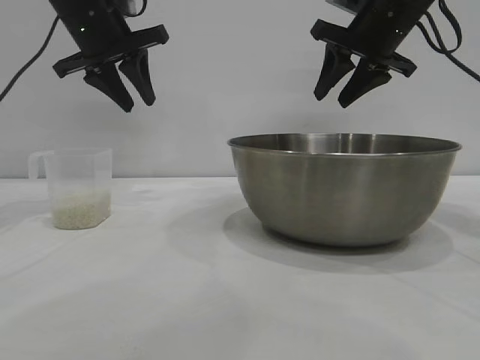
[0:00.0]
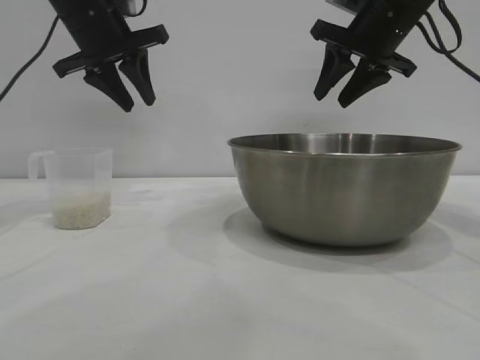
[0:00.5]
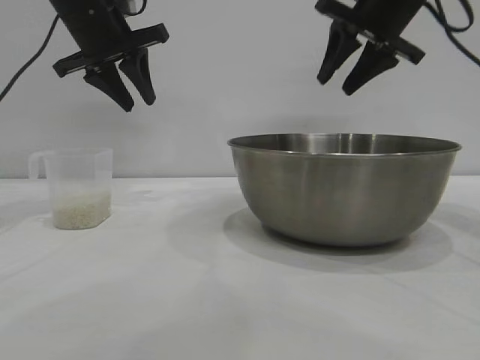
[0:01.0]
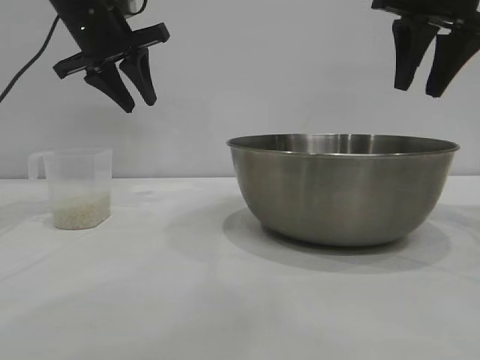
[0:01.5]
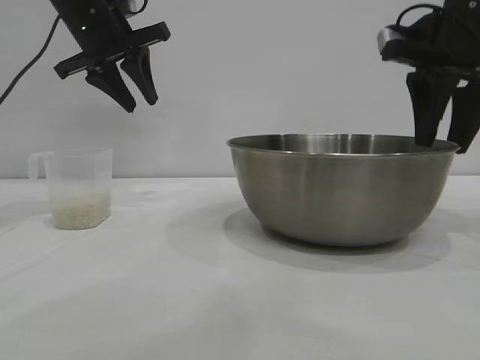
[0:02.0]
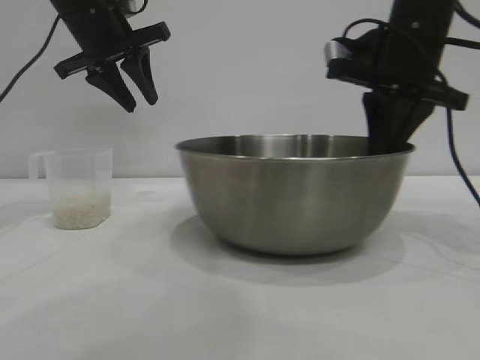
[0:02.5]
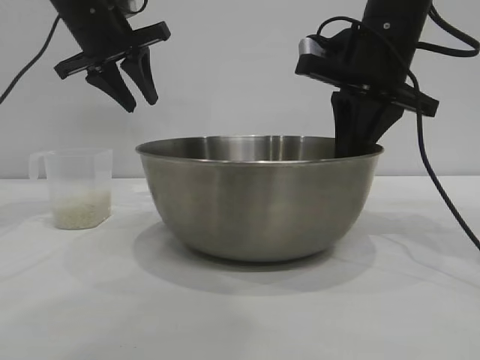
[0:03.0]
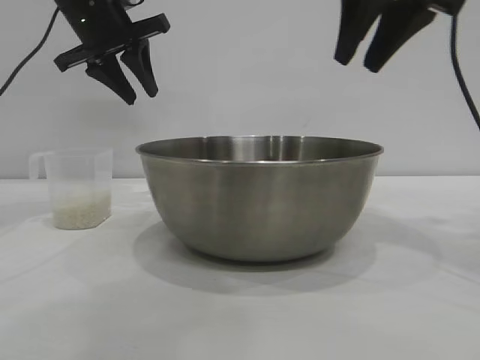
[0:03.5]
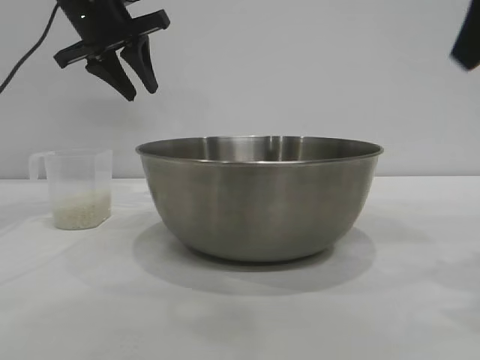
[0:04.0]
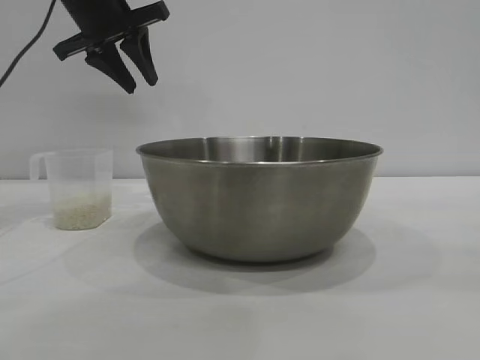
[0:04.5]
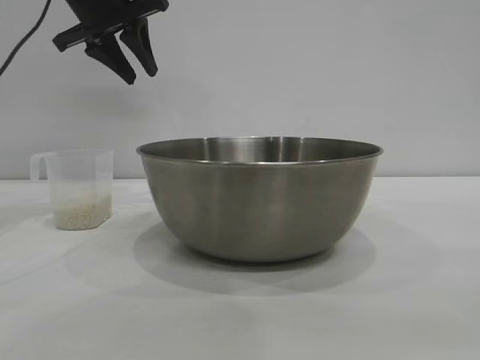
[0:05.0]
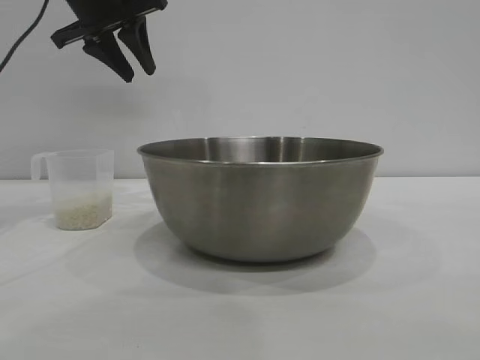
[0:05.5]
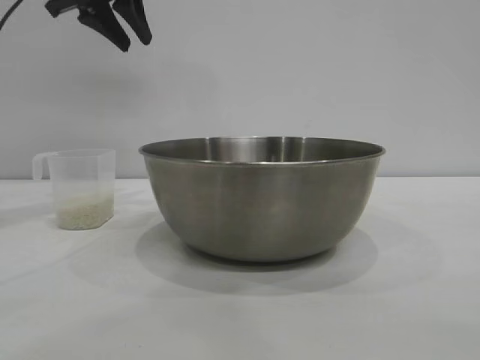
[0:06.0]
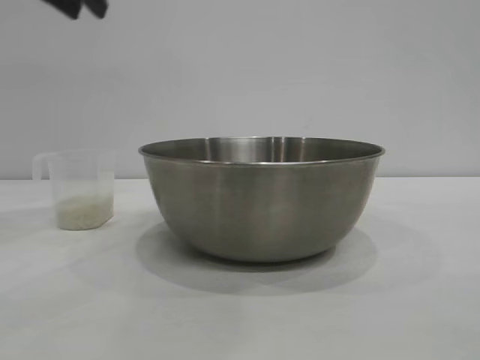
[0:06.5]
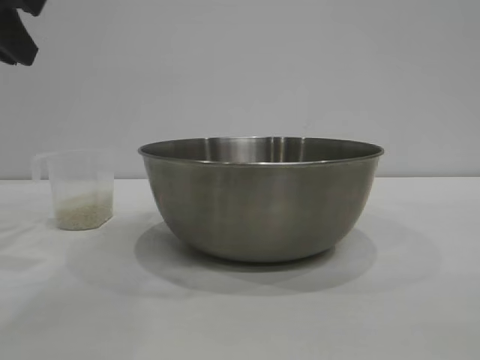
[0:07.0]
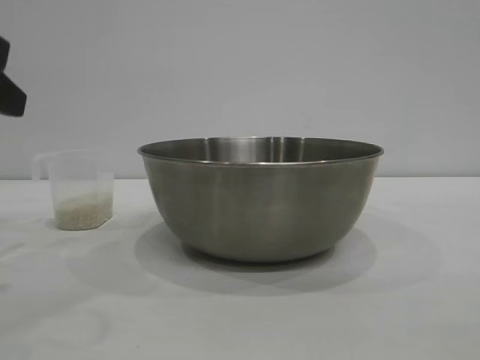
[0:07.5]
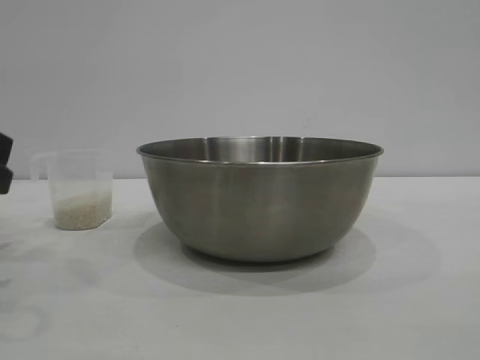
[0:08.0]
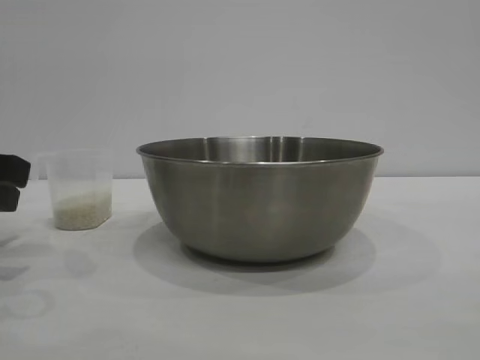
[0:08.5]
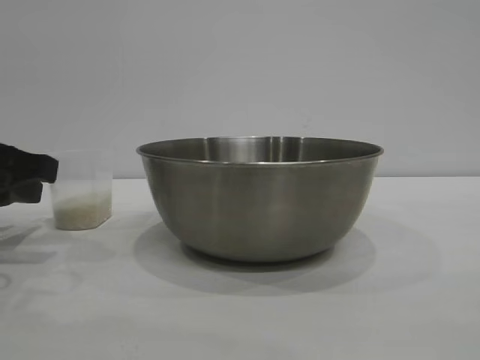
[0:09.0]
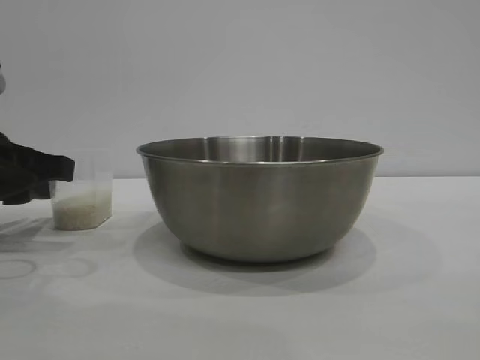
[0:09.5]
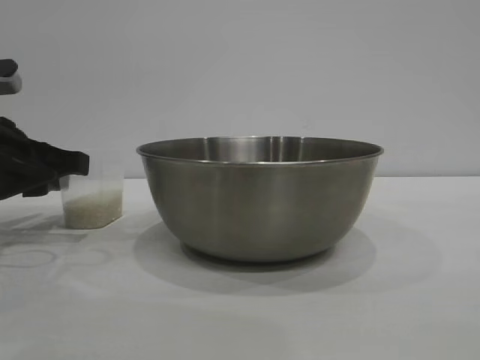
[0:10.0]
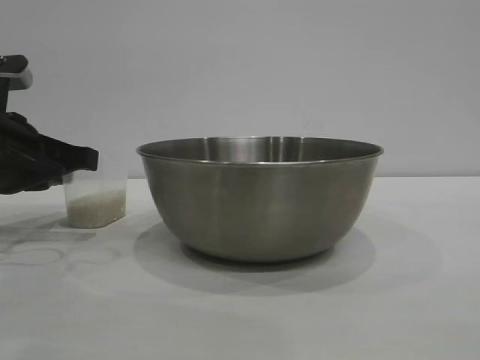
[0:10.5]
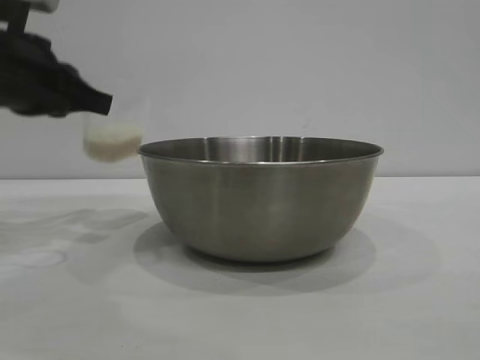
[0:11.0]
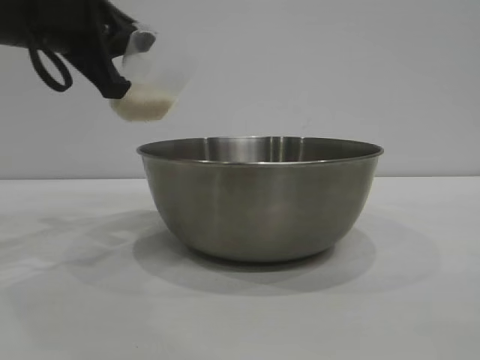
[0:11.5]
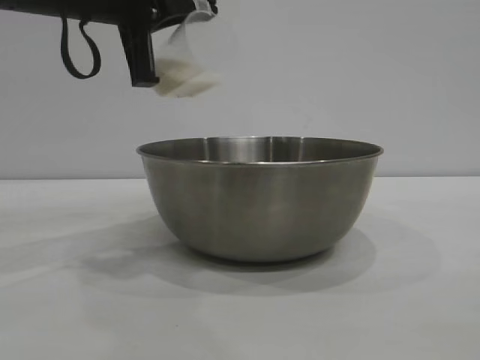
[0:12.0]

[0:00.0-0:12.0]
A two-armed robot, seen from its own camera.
Task of the whole recording: the right gripper grasp the rice container and place it in the center of the table, the left gripper grasp the rice scoop and pour the rice into the rice container.
Step, 0:00.0 to 0:03.0: Move the bowl to the center of view with the right gripper.
Step, 0:03.5 to 0:11.0: Pick up the cup with rice in it with the left gripper.

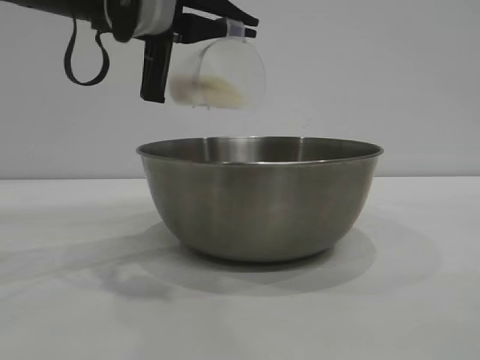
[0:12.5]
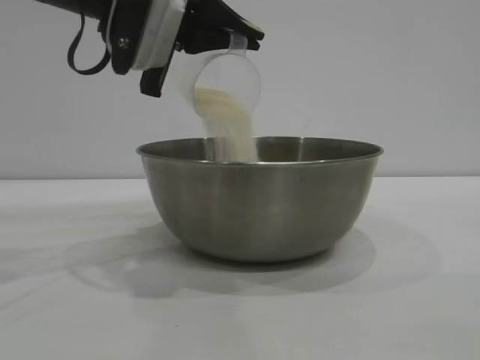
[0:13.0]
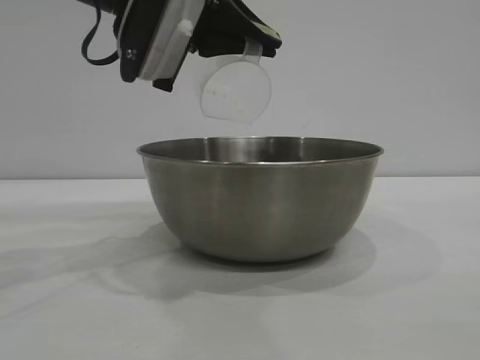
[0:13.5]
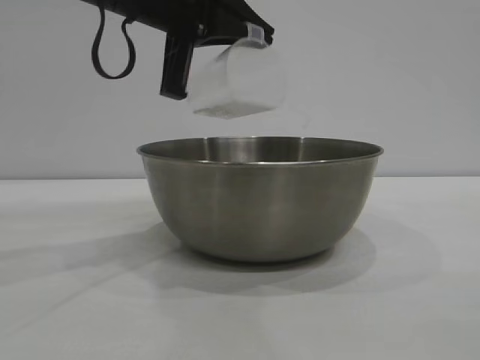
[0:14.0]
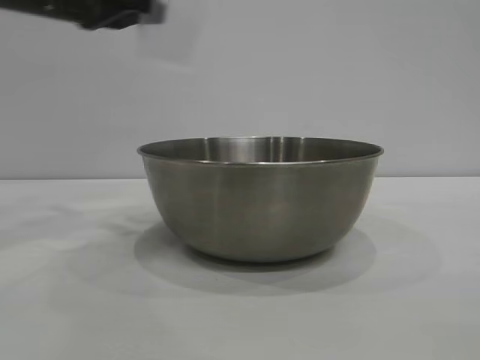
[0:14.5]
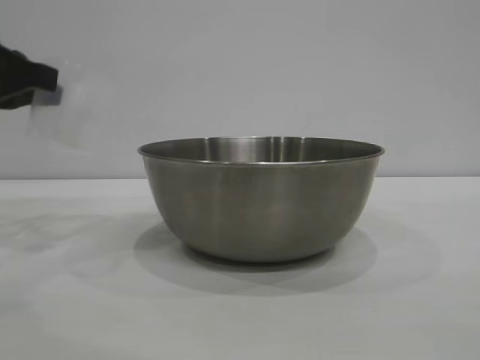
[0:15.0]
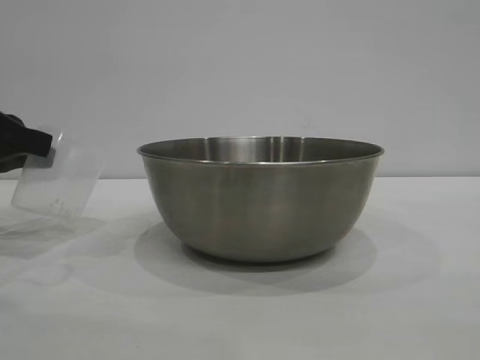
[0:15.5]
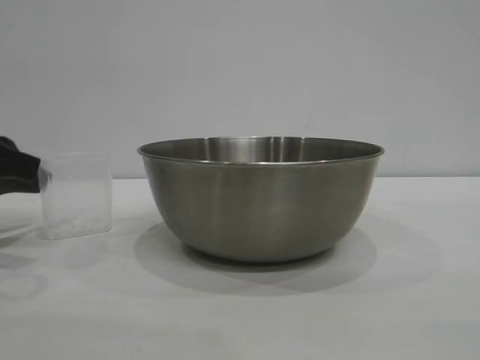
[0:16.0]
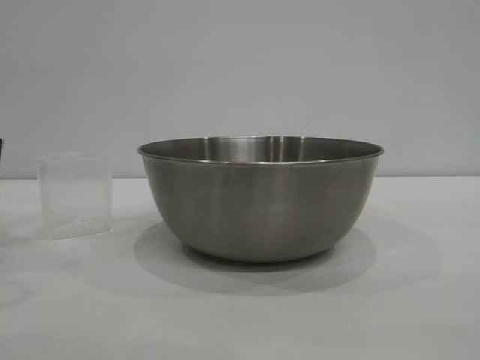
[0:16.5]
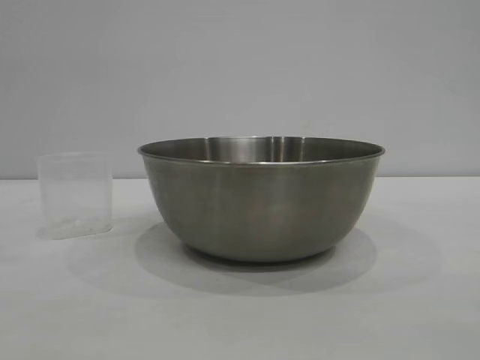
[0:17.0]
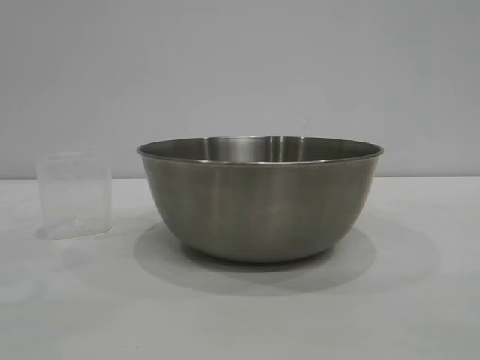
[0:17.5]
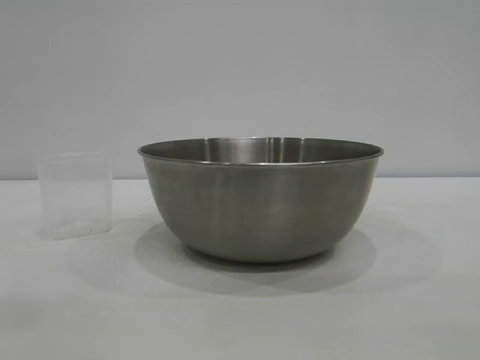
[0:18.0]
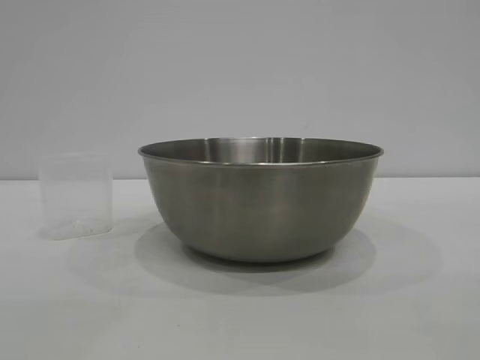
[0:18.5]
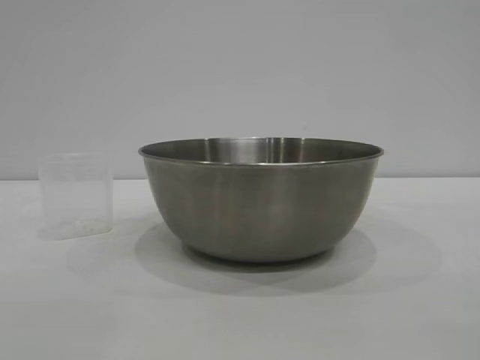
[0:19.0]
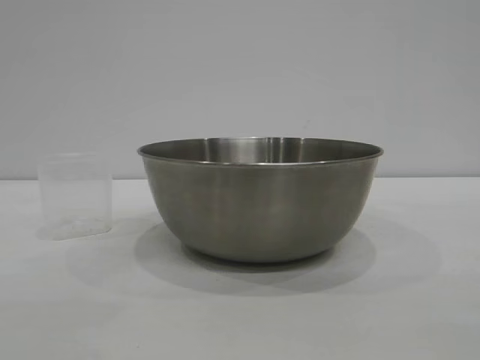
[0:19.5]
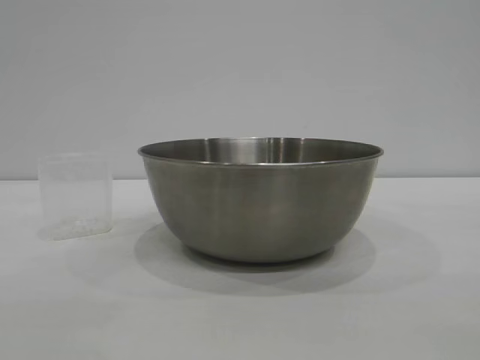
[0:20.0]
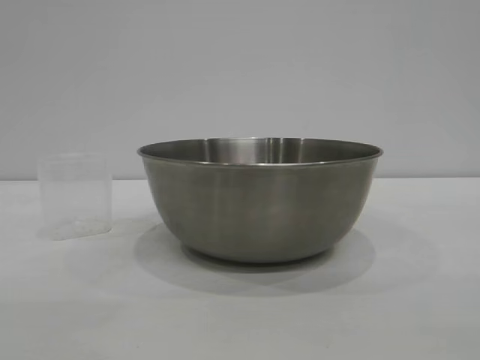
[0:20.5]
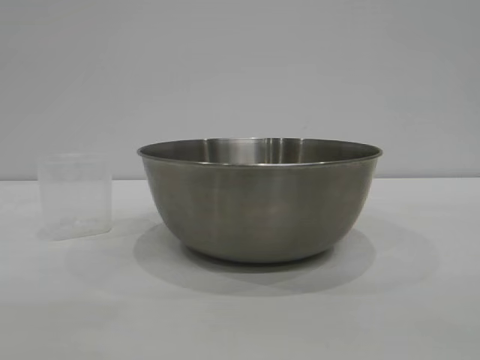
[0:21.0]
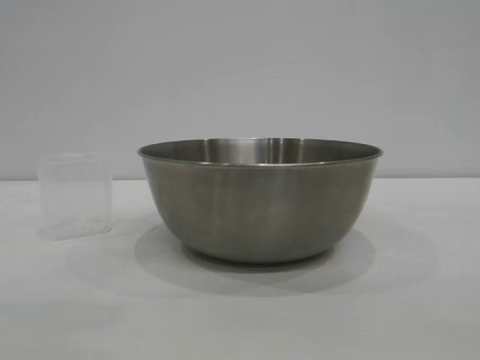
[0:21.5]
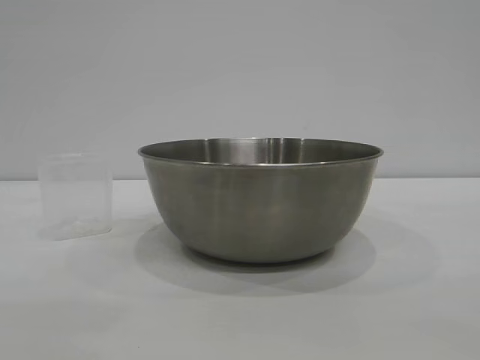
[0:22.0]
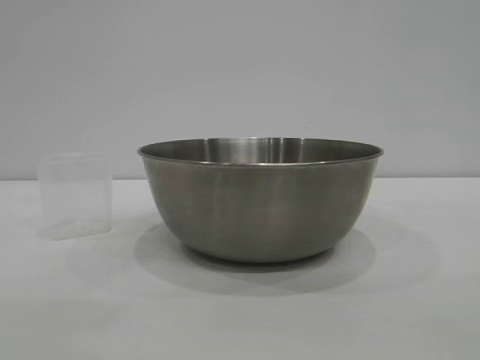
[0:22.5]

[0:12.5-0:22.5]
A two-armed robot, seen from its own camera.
Task of the whole recording: the right gripper grasp the rice container and place it in the center of the table, the left gripper grasp the rice scoop and pour the rice into the rice container.
Step, 0:14.5 to 0:16.0: Place the cup on the table with the left gripper.

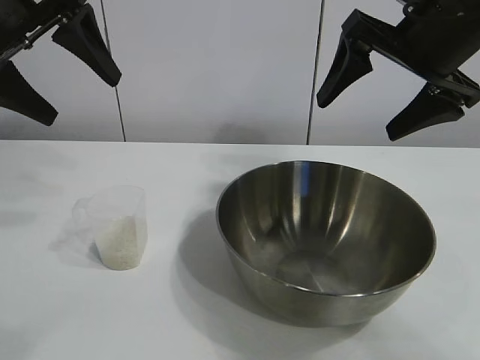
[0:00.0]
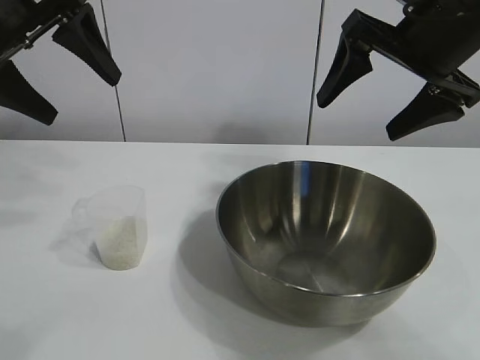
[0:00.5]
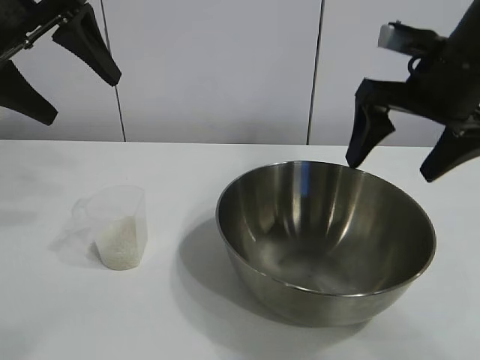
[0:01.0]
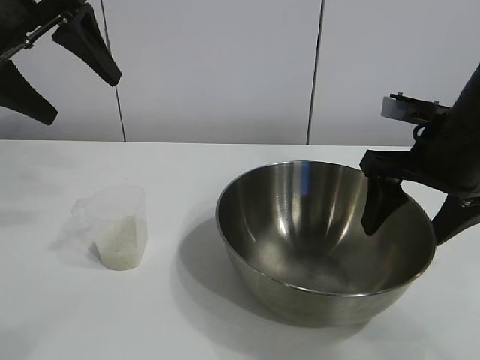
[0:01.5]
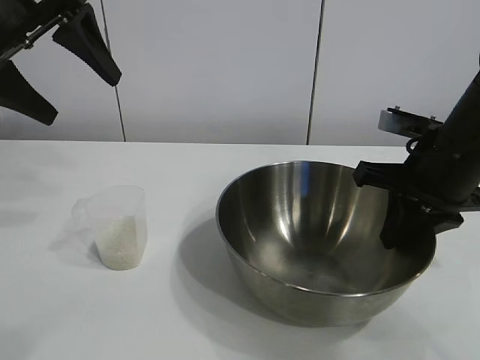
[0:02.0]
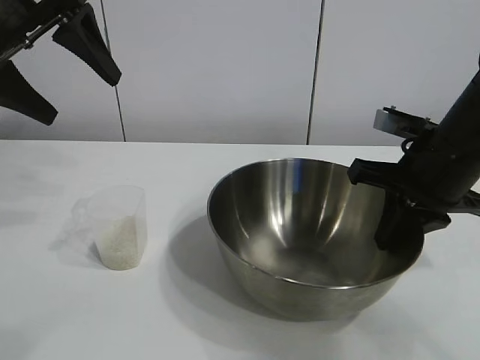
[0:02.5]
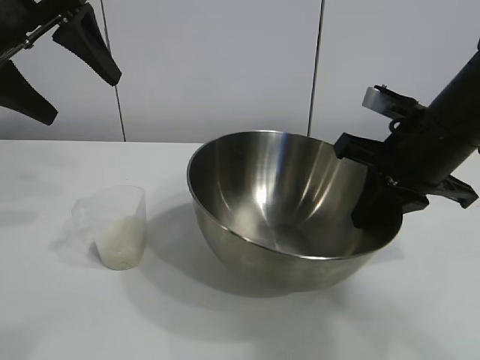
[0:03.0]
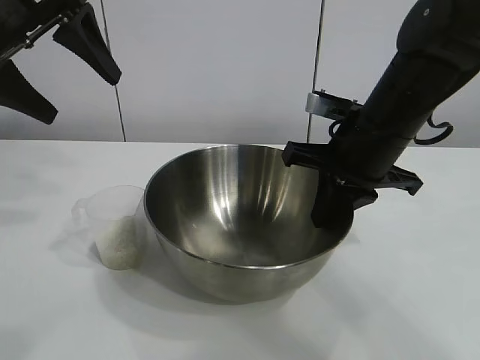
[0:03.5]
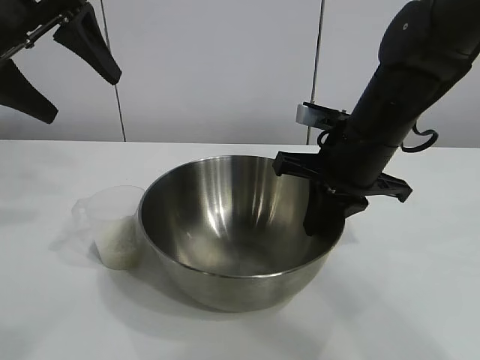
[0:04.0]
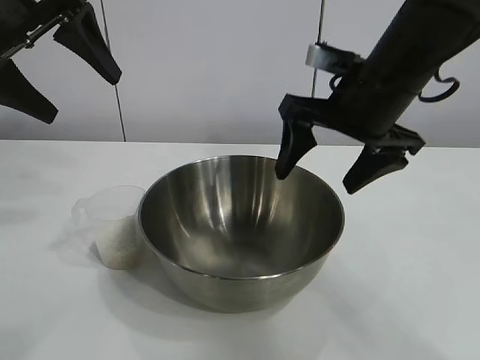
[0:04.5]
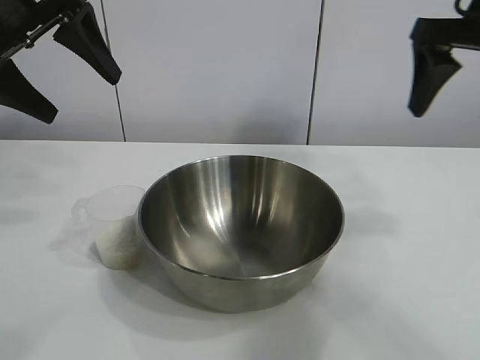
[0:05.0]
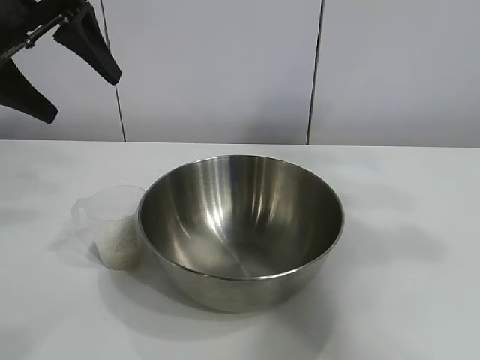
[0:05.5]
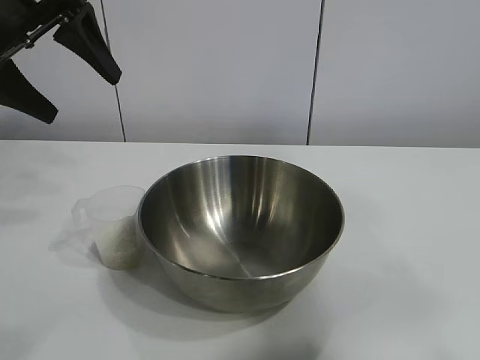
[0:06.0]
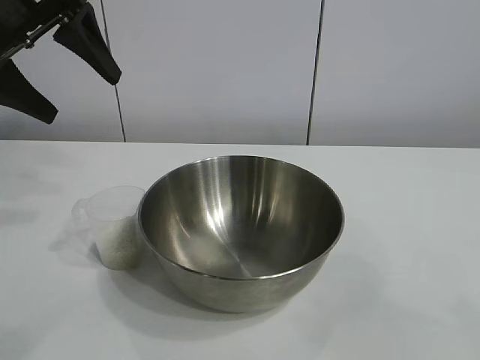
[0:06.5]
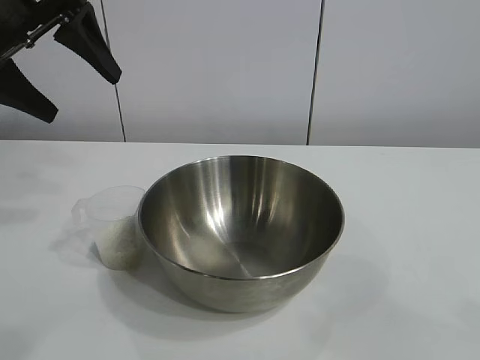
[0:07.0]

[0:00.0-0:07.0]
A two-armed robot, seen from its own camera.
Task of the whole recording: the right gripper grasp the rice container and place it in the center of the table, the left gripper grasp the rice scoop and pour the rice into the rice container.
Step, 0:01.0 to 0:04.0: Move the bowl in the center of view with right gripper.
